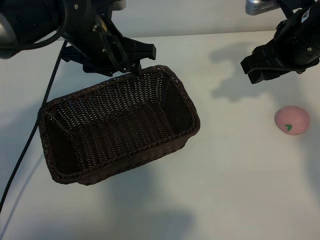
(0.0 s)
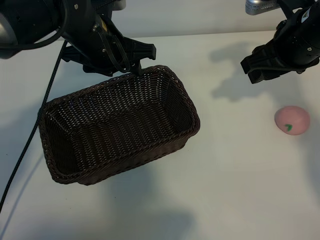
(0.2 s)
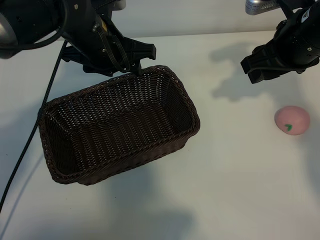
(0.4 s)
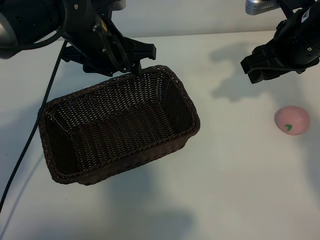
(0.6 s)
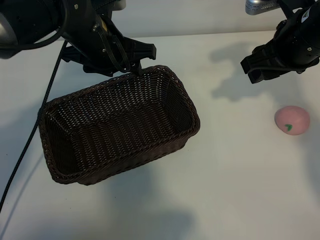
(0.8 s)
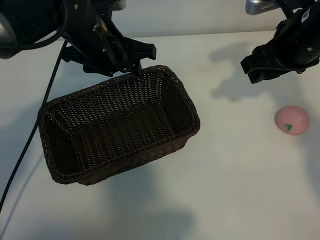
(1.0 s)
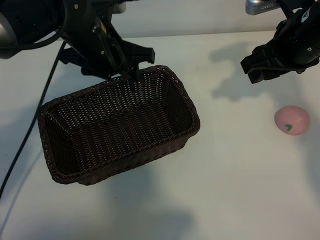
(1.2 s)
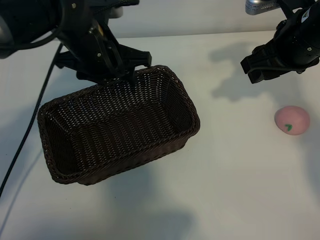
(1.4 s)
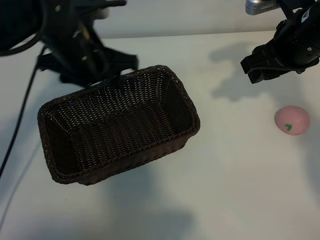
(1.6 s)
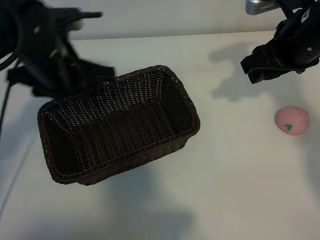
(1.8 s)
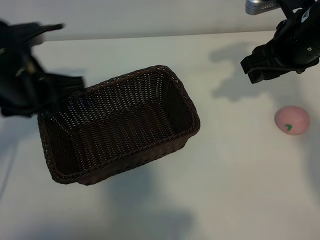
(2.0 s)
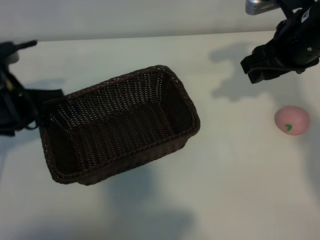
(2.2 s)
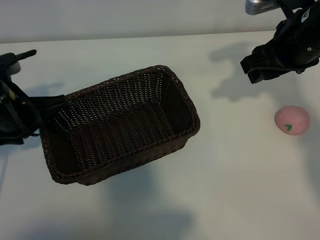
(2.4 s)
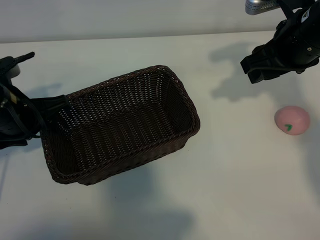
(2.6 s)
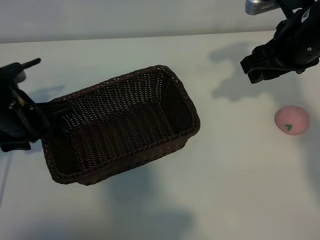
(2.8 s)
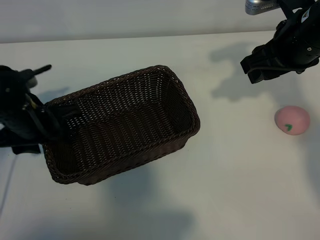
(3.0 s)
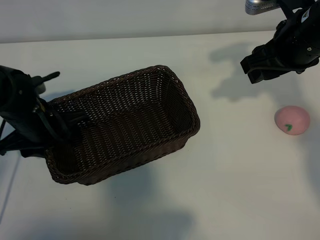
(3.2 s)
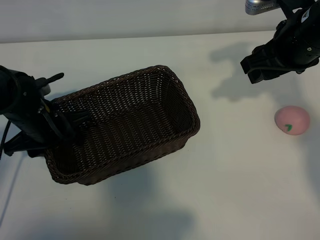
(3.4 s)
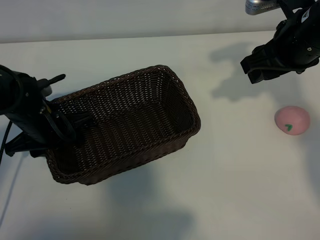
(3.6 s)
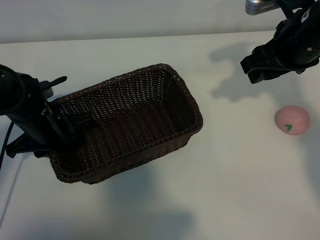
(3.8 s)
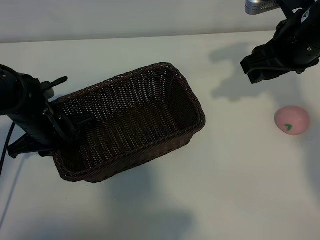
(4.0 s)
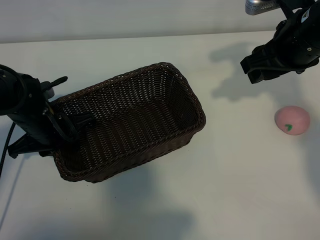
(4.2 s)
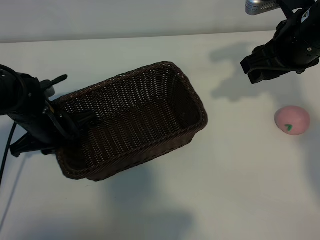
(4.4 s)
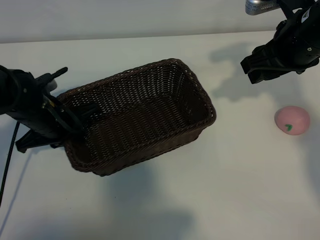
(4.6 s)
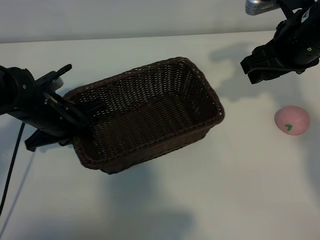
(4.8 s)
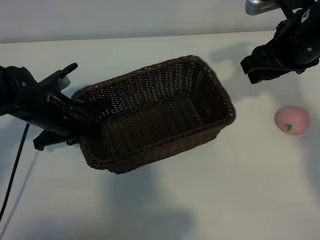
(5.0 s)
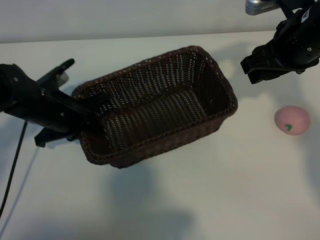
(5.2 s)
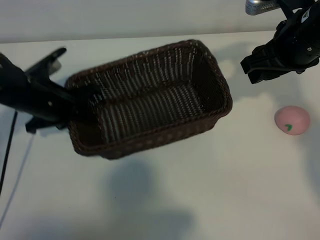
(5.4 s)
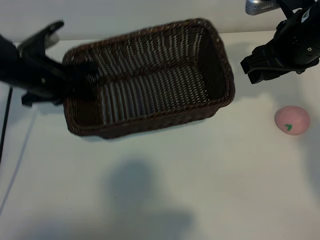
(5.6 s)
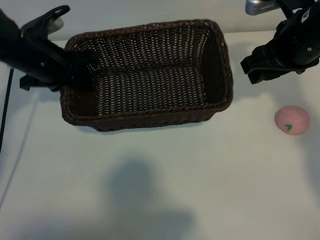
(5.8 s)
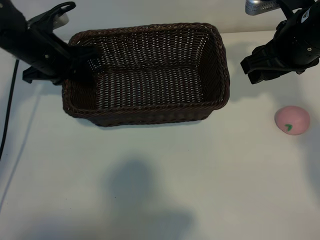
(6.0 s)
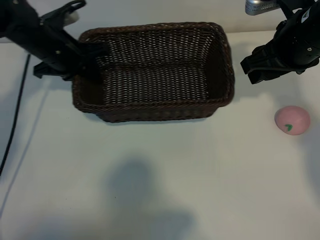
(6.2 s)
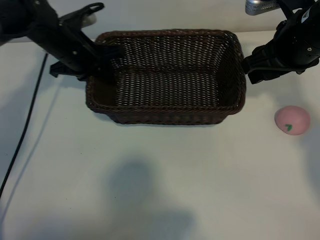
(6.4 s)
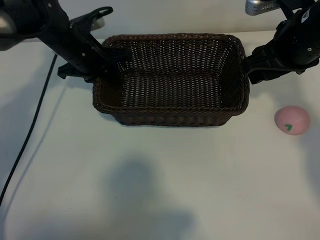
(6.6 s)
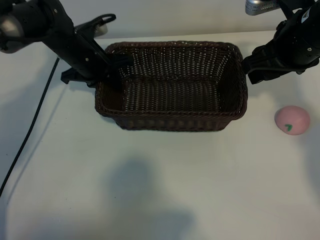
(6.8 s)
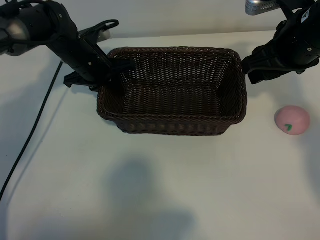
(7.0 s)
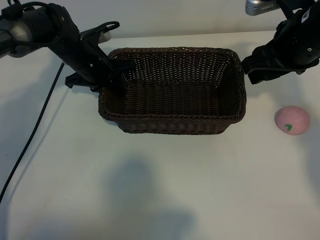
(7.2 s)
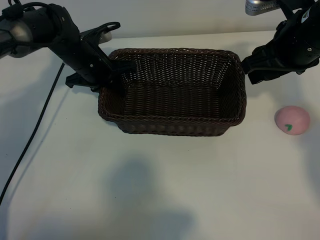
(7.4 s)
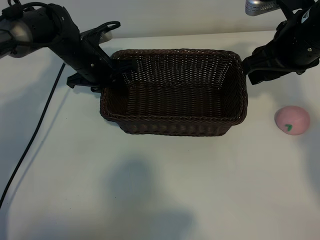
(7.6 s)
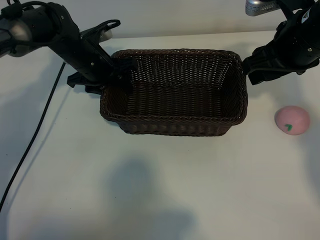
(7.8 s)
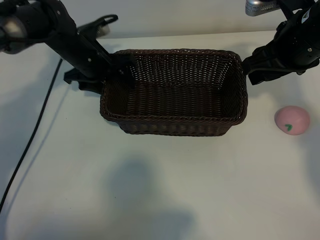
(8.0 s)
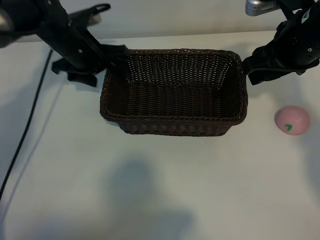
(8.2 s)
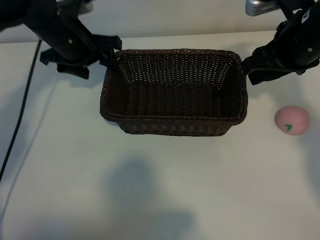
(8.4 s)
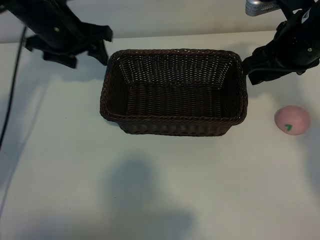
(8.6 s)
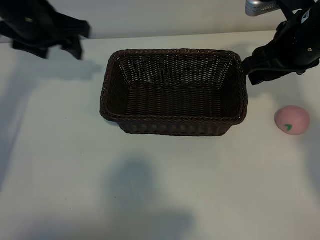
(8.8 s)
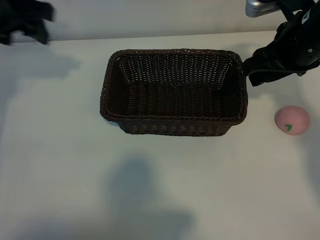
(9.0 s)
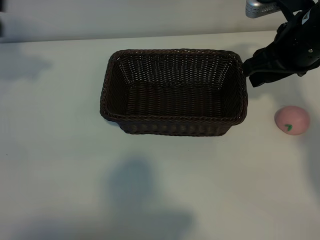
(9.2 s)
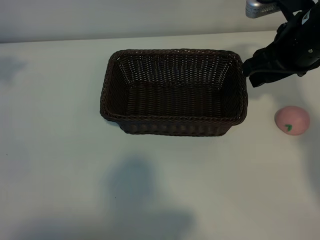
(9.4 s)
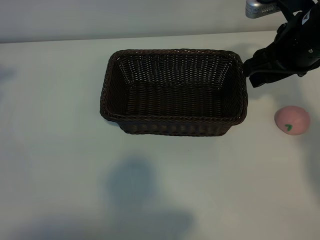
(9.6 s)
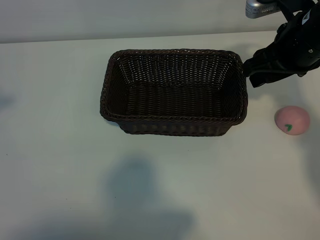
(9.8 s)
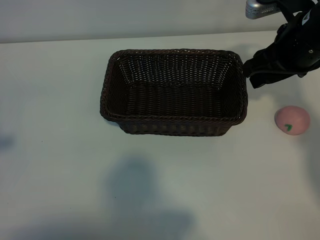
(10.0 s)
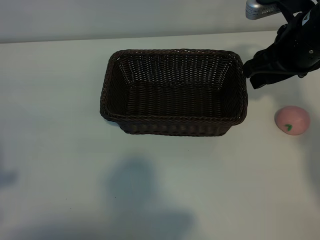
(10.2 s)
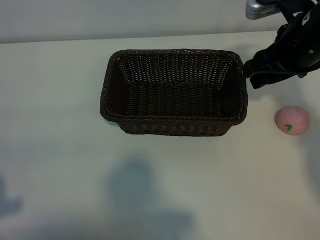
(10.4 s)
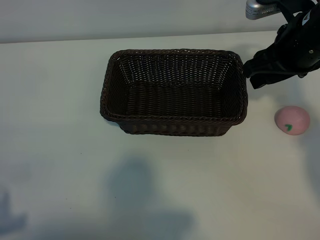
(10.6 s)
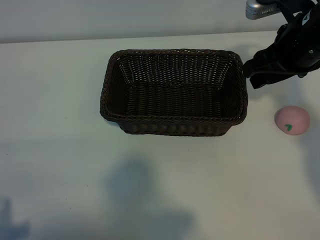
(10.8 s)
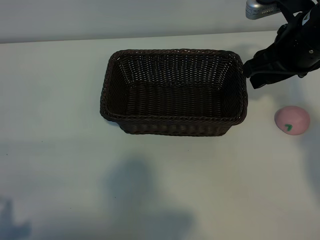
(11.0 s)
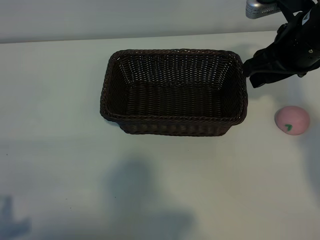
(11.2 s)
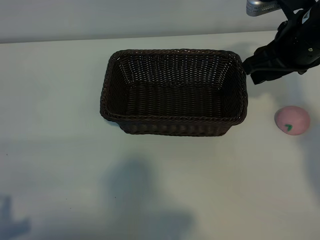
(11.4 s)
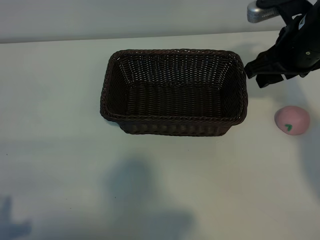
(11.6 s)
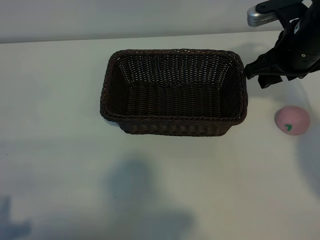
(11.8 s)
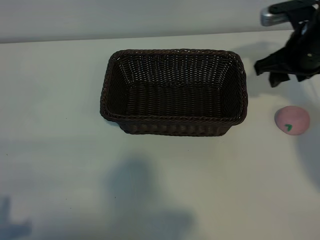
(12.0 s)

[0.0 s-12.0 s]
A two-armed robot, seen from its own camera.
Task of the whole recording: pick up the peach and put it into the basket.
Step, 1.2 to 4.0 s: Grasp the basket with left gripper.
Step, 4.4 to 8.2 s: Place the basket in the center of view with left gripper.

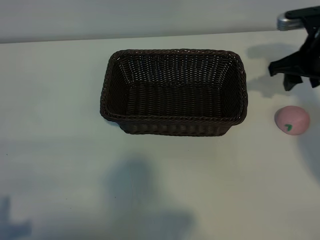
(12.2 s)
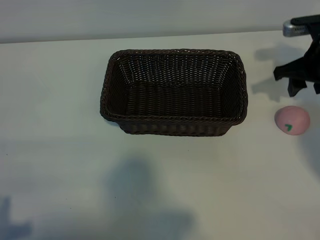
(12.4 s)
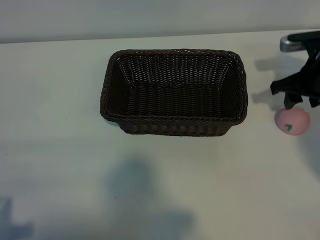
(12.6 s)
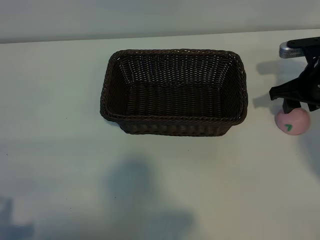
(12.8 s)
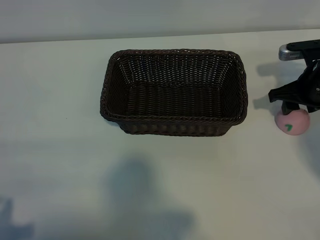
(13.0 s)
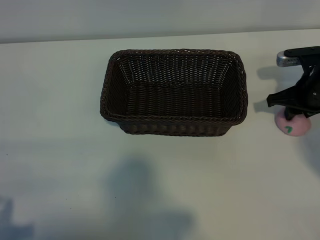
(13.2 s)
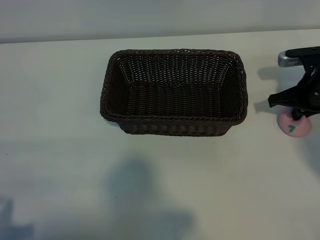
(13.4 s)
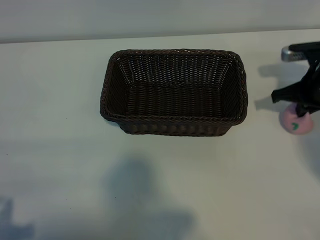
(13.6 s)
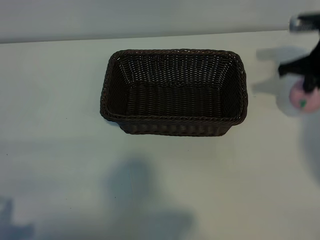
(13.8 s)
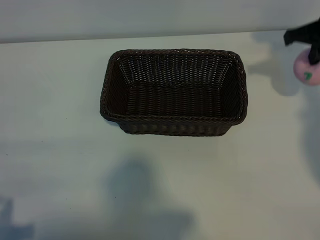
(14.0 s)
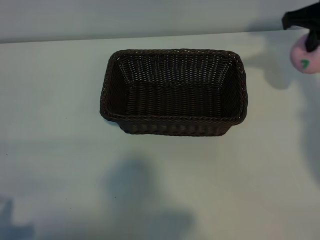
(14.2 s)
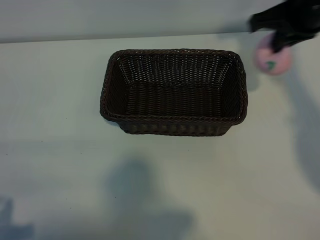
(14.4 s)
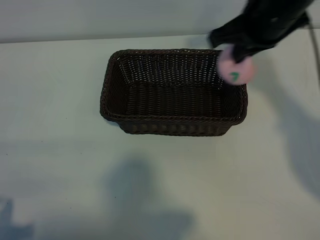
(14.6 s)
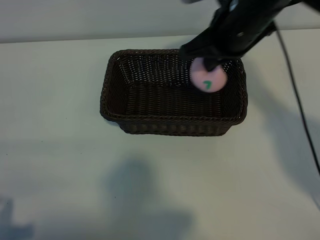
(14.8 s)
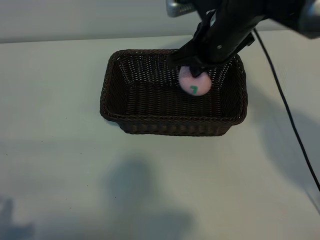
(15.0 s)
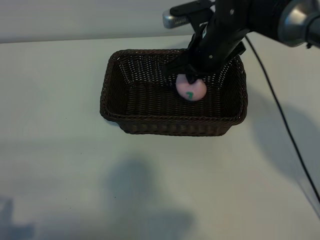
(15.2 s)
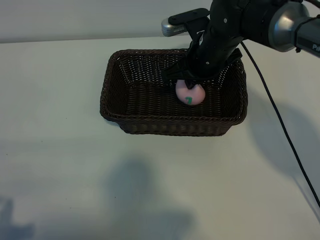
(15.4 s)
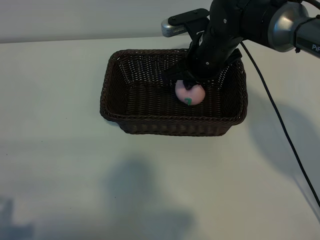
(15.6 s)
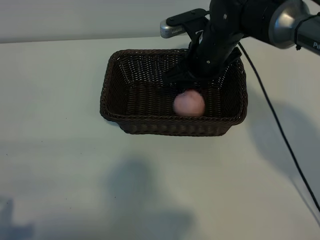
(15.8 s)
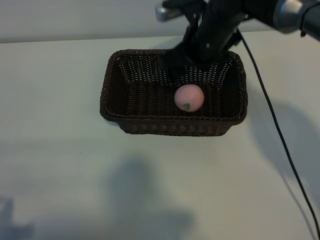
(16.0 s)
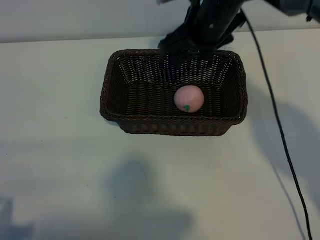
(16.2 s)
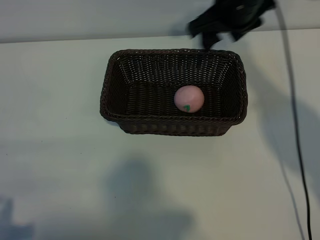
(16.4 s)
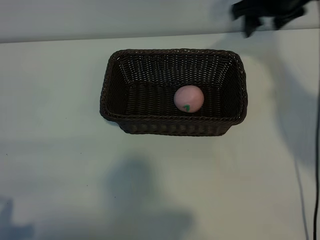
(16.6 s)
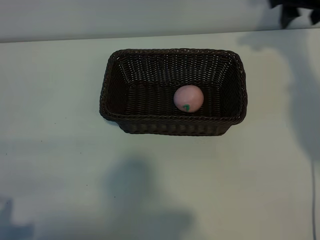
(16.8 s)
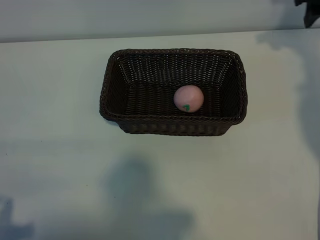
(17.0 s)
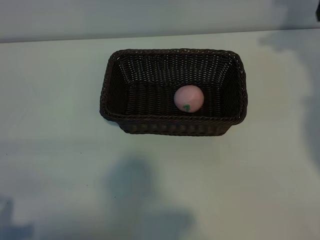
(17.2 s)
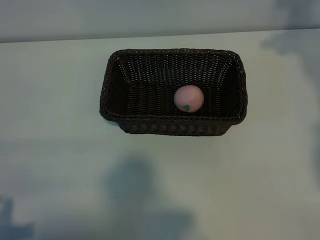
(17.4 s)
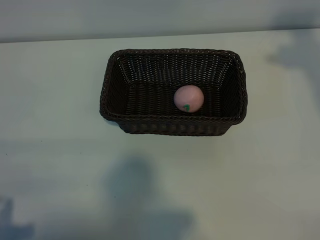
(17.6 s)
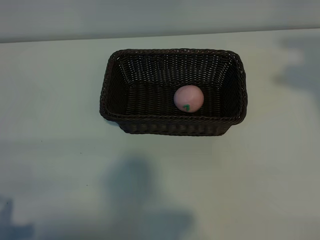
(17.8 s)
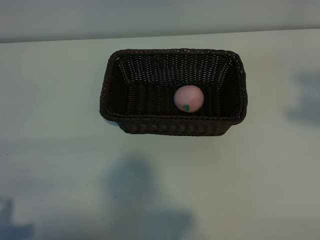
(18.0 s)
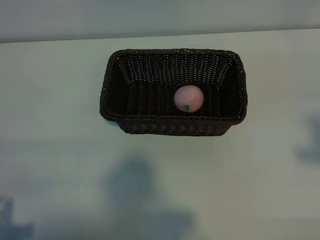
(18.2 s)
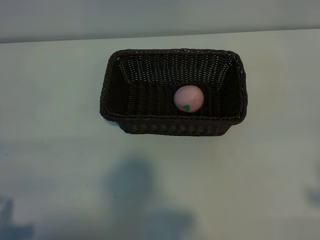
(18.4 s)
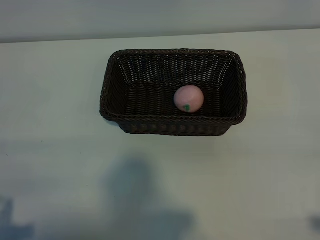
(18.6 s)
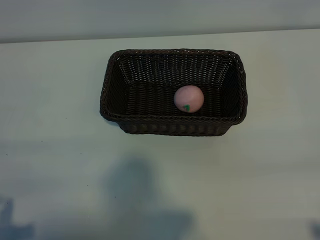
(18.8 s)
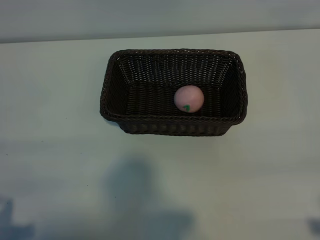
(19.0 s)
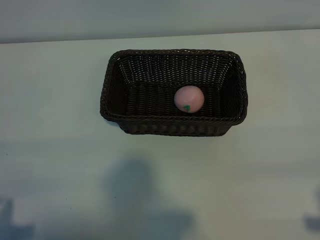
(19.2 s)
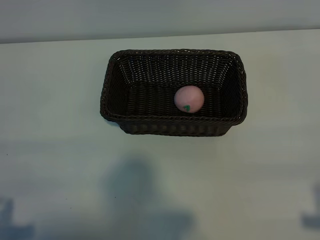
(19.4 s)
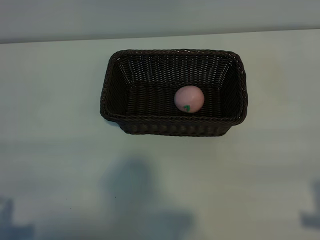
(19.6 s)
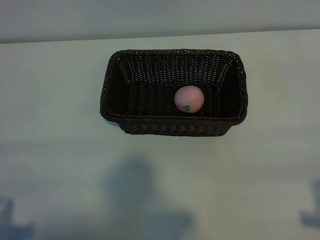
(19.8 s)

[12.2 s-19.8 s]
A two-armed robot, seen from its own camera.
Task of the whole recording: pick up the peach and put it into the basket.
Step, 13.6 to 15.8 s: Place the peach in the basket with right gripper.

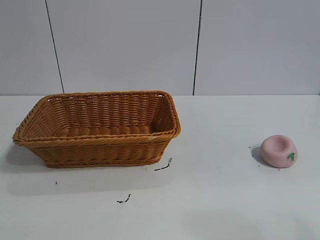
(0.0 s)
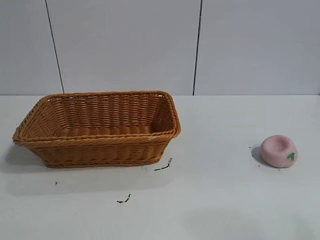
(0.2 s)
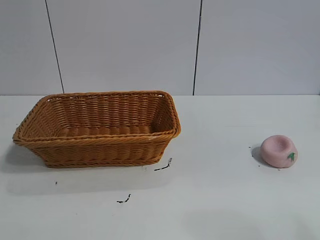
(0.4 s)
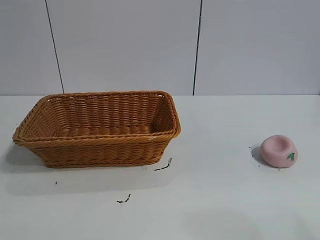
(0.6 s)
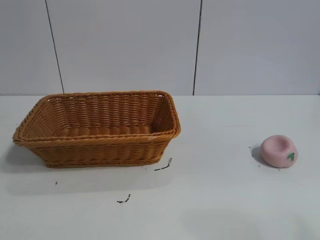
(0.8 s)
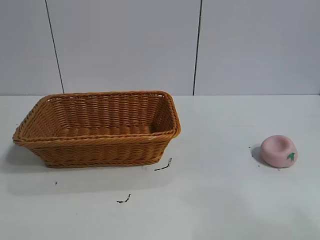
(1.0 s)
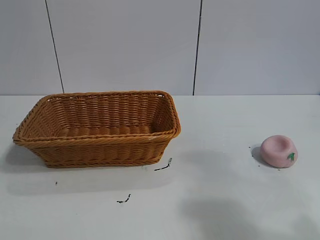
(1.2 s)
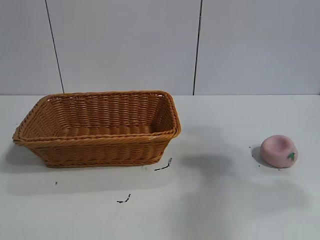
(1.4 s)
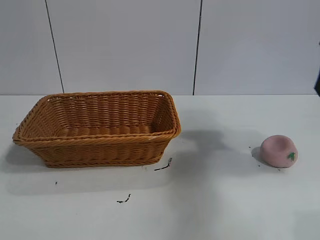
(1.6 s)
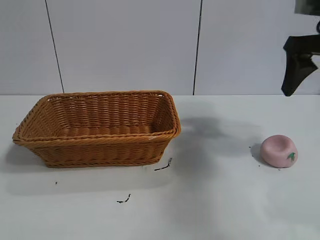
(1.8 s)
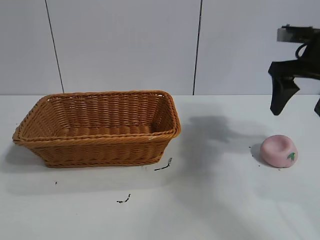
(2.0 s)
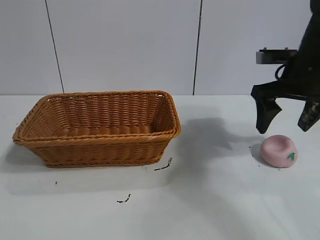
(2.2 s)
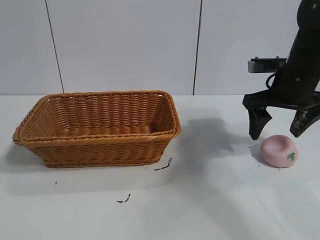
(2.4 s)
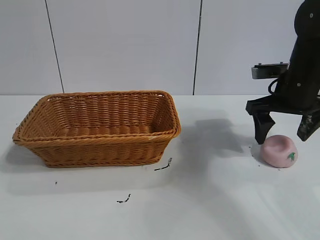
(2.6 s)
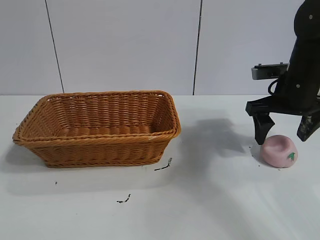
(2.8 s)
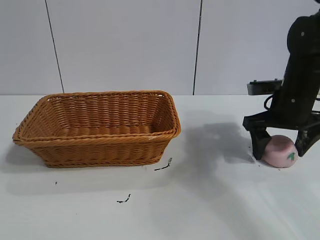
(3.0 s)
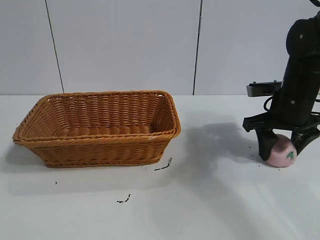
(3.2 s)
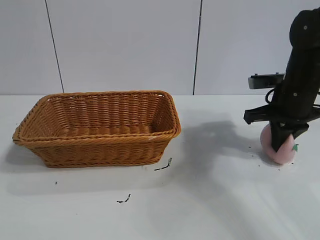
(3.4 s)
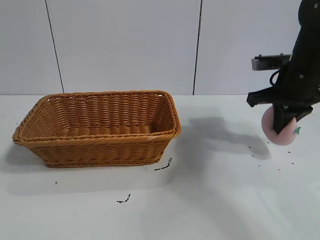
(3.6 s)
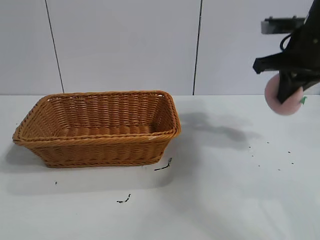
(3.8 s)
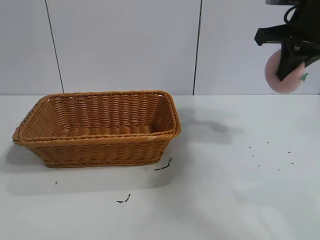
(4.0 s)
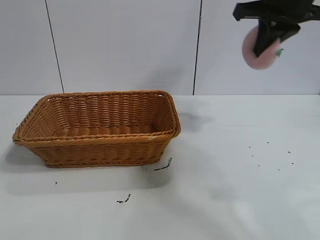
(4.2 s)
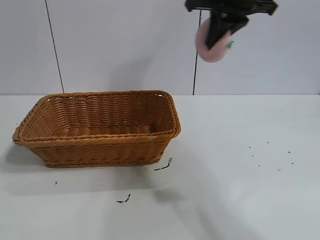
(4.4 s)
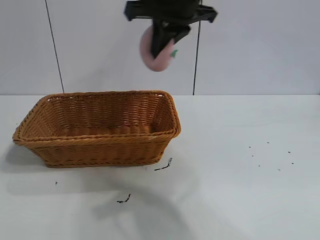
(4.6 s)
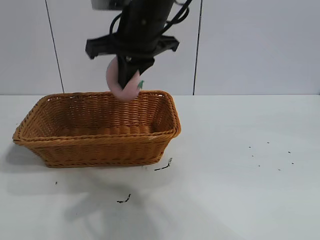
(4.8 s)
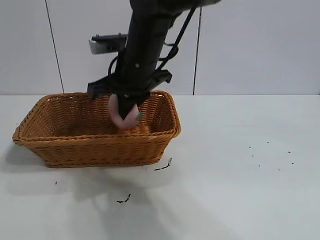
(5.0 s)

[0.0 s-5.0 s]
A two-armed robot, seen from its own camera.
Task of the whole recording: pick up the peach and put it into the basket.
Step, 1.0 to 3.6 s: Grasp the peach with right gripper.
